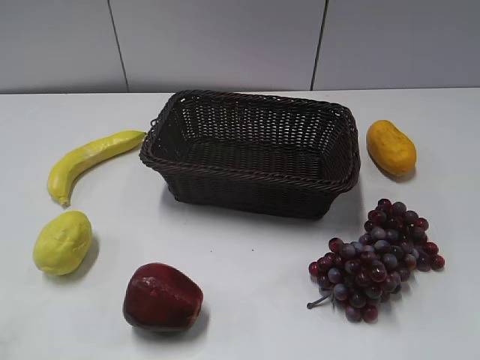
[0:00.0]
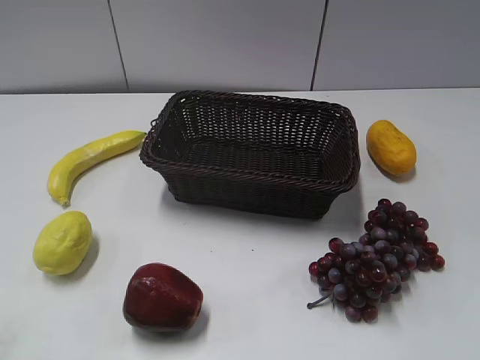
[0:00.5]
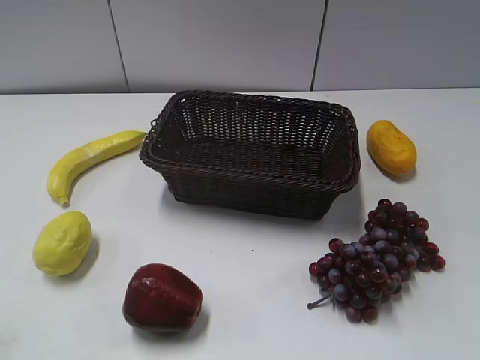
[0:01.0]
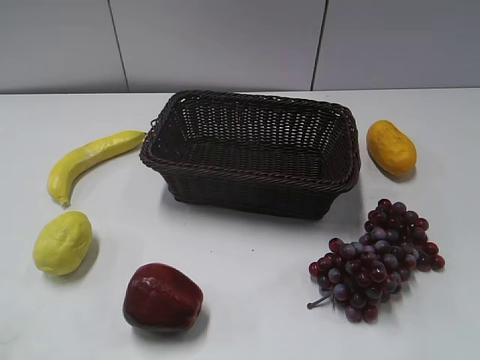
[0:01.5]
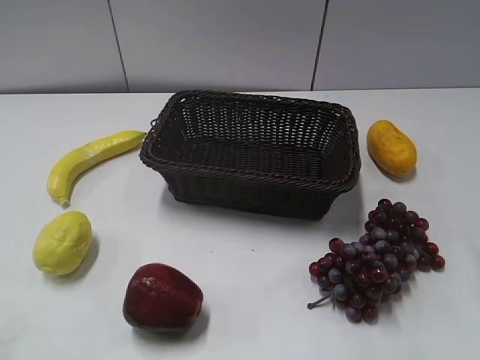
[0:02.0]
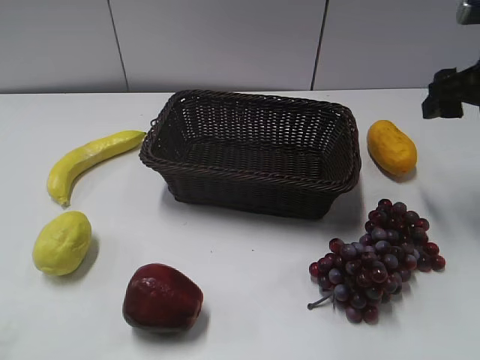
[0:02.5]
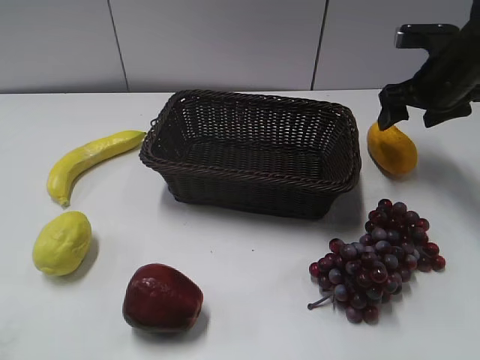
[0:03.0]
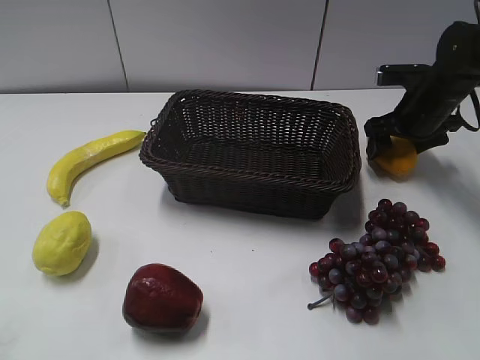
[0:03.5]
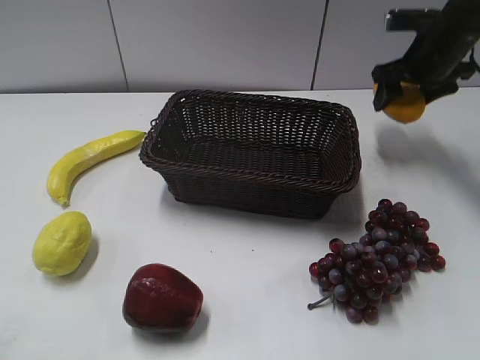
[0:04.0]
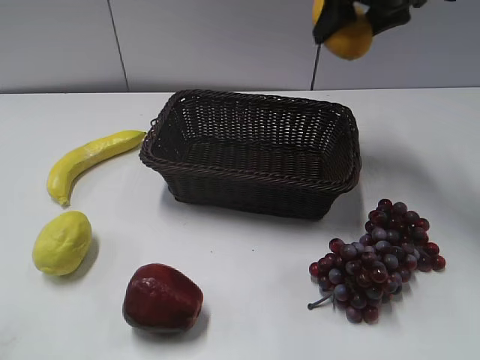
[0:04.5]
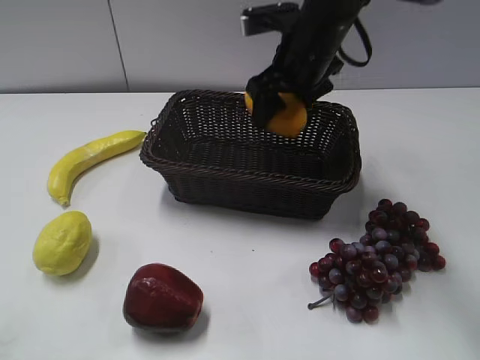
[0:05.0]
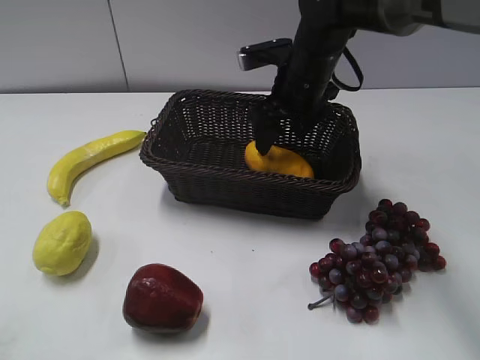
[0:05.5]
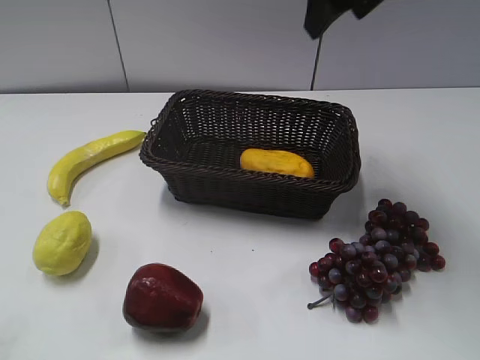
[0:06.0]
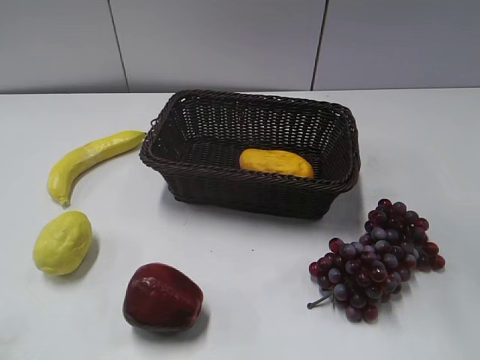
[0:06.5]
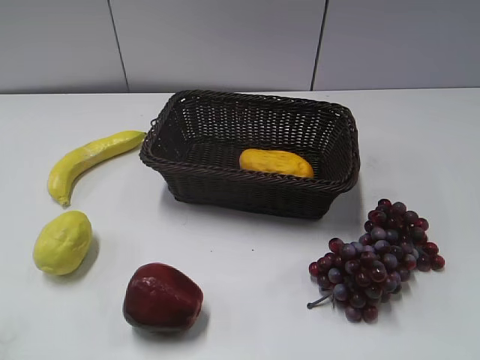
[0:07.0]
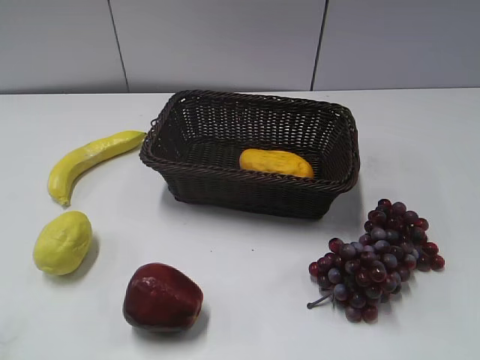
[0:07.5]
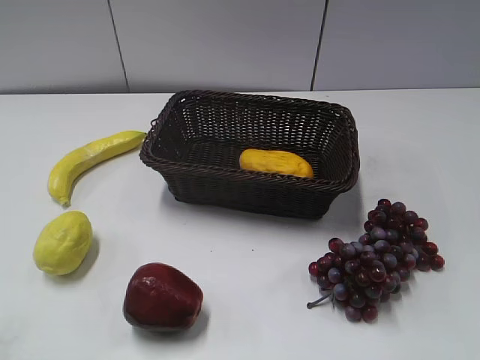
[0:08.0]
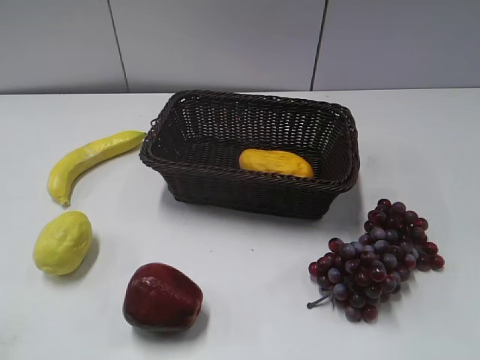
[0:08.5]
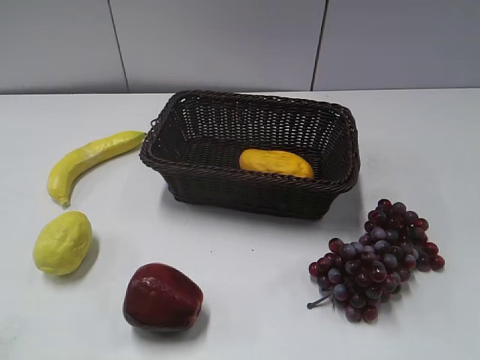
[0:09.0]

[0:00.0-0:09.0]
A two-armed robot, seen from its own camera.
Step, 0:02.5 to 0:03.5: Grasp the mango with right gripper.
Step, 0:04.0 to 0:05.5: Place the mango in the basket with right gripper.
0:02.0 to 0:04.5: The right gripper goes roughly 30 cm forward and to the left, and opens and closes again.
0:04.5 to 0:07.0: The right gripper travels backward by about 35 cm, and opens, then closes again.

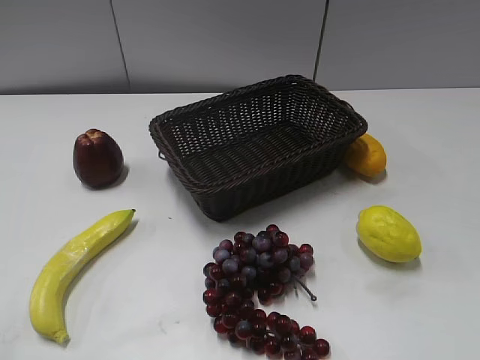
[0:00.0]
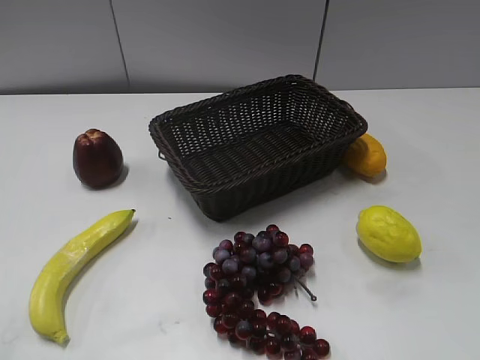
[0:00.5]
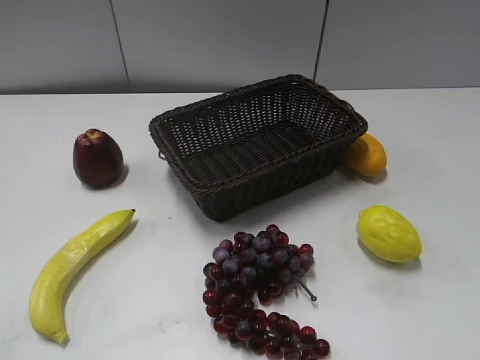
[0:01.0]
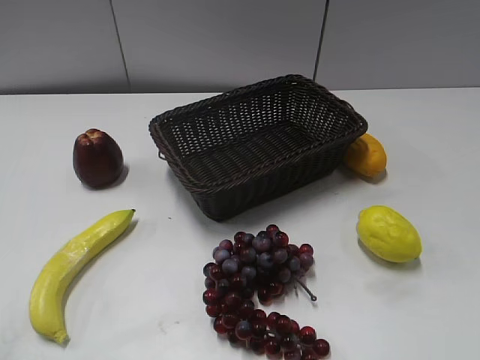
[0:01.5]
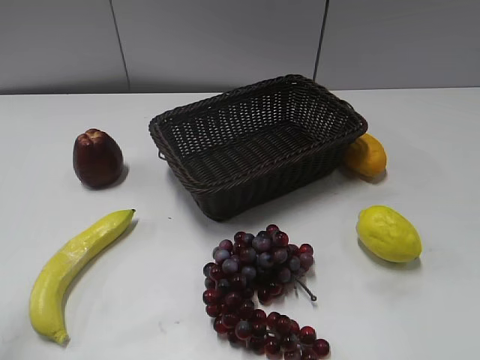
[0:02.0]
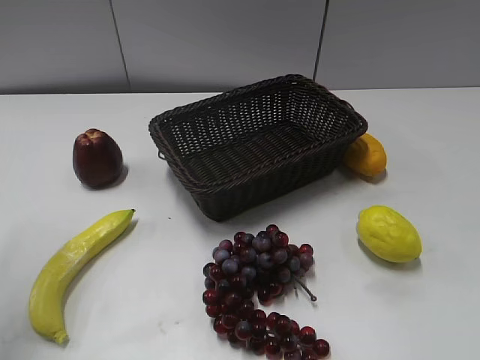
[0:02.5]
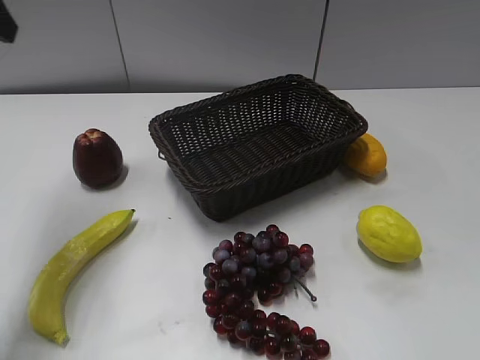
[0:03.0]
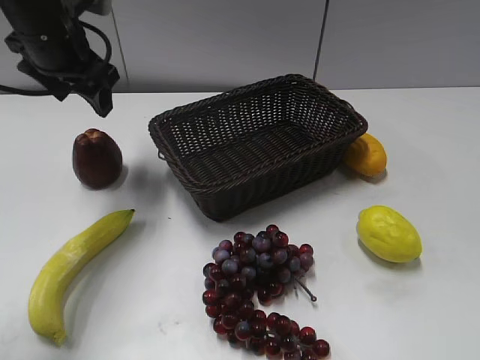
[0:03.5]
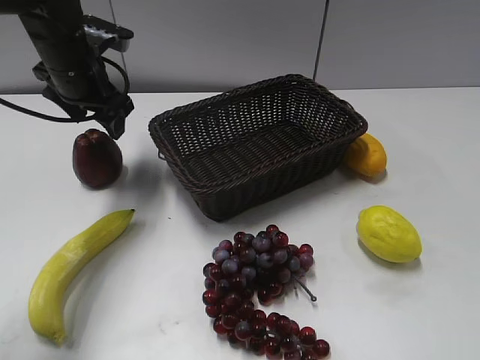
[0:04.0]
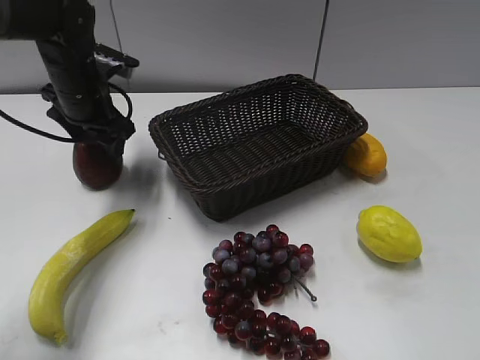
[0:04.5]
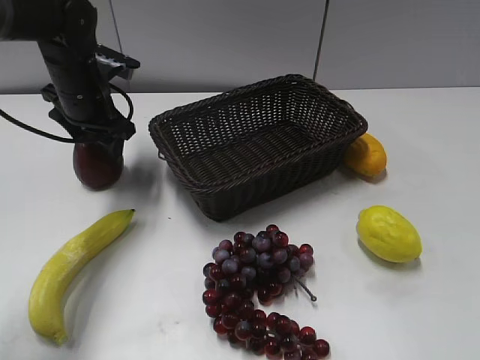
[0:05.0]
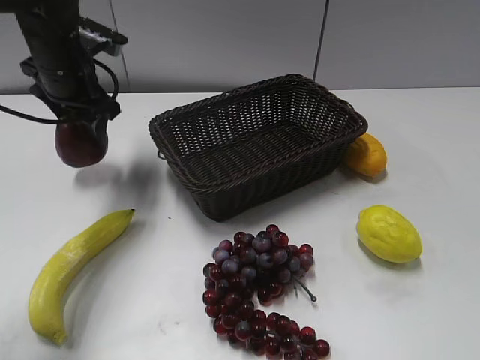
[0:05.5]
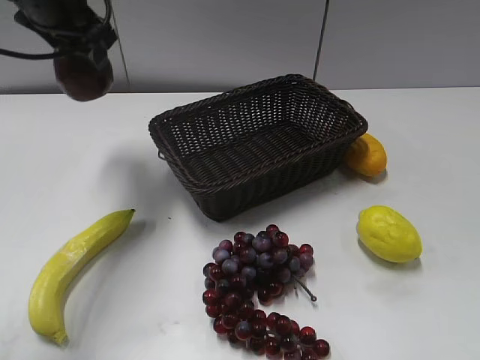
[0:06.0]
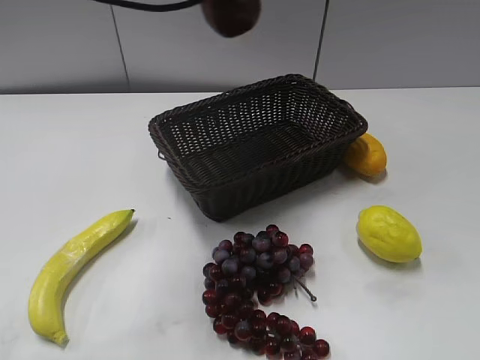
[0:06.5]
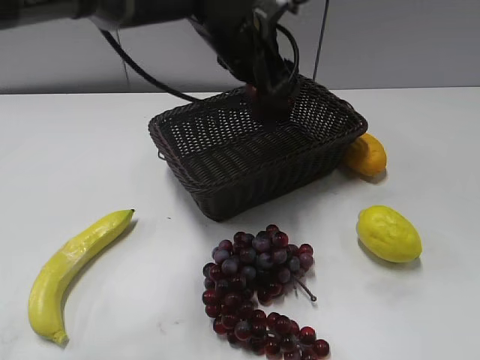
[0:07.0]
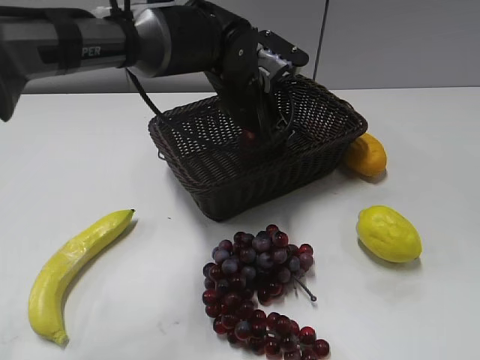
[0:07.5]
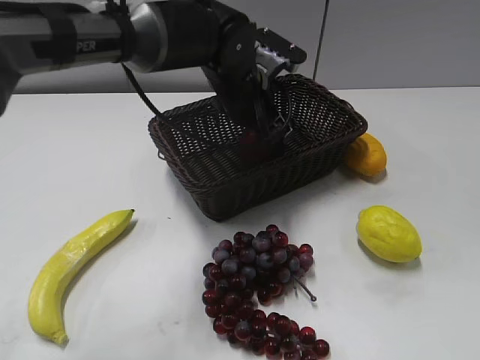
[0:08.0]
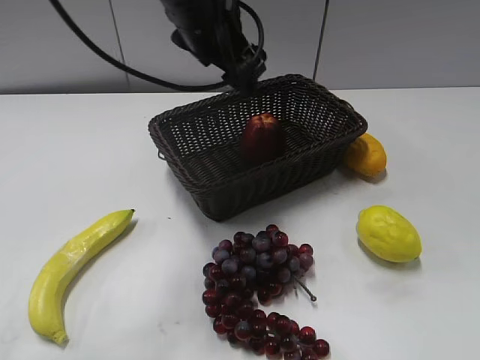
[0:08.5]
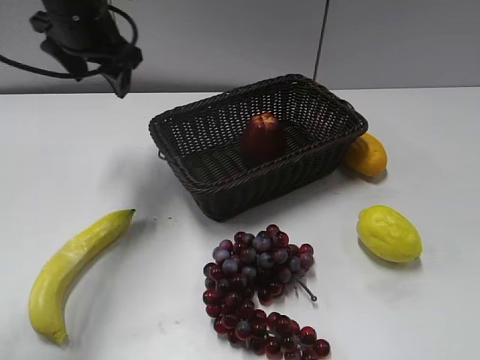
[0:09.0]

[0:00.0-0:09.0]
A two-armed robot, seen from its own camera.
Step, 0:03.0 to 0:04.5: Grasp the apple with left gripper.
Step, 0:05.0 to 0:07.5: Place the apple in the basket with left gripper.
0:02.0 to 0:04.5: The left gripper is displaced forward, downward and to the right by some 40 cm.
0:04.5 to 0:07.0: The left gripper is displaced to the right by roughly 20 cm, and closes up.
0:07.0 to 0:09.0: The left gripper heads to the left, covering some 20 cm, and opens up.

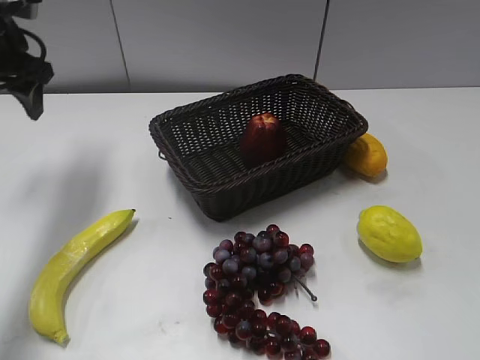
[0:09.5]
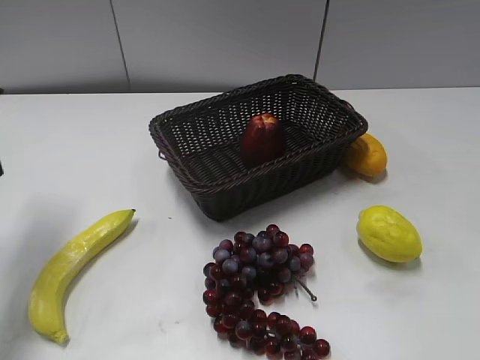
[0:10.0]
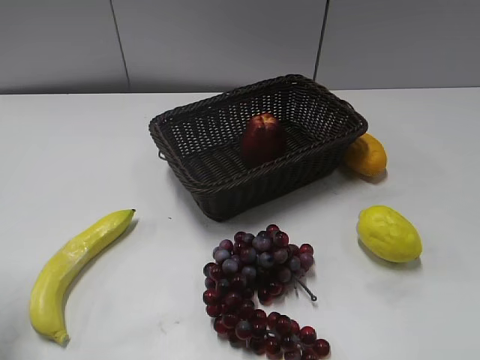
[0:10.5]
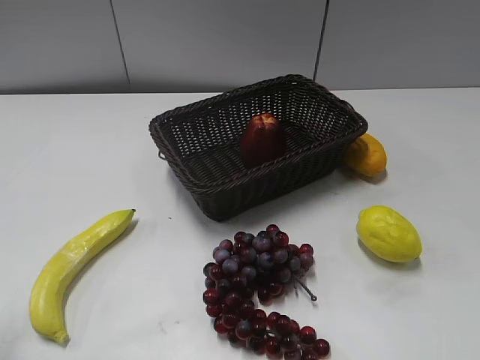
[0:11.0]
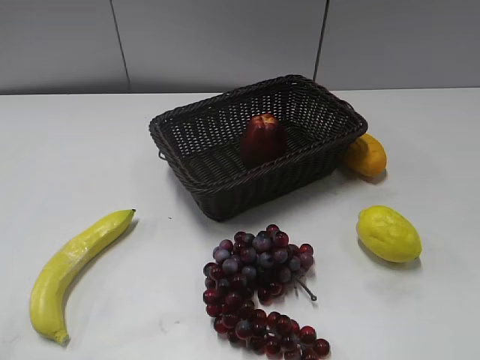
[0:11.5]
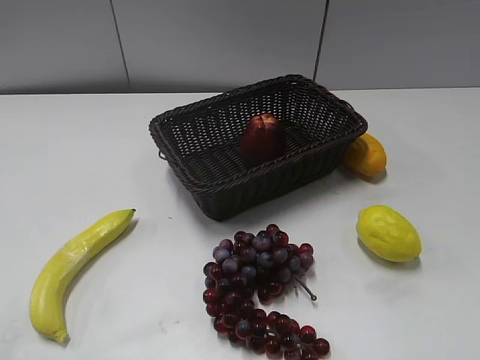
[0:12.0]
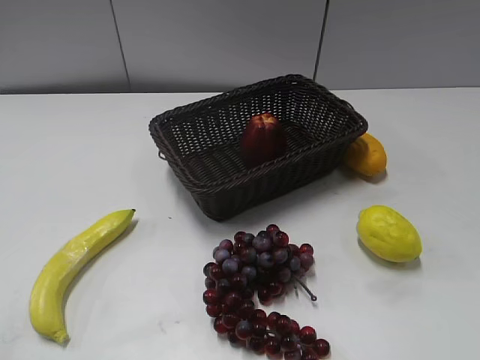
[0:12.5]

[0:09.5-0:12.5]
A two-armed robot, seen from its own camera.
0:09.5 to 0:11.0: The left gripper moves backward, roughly 30 cm.

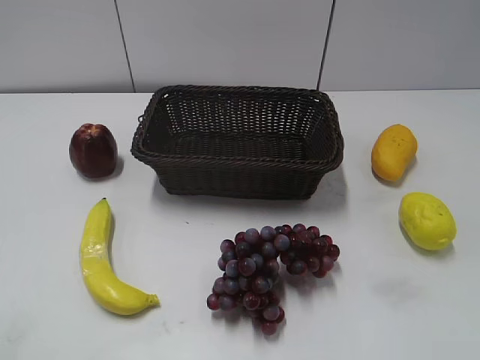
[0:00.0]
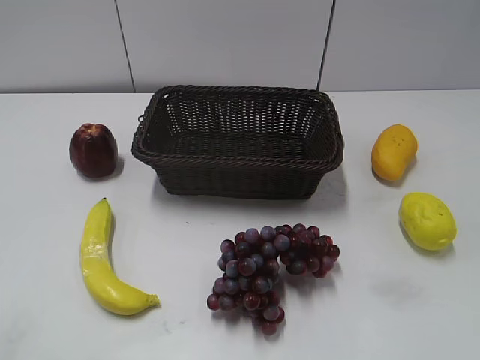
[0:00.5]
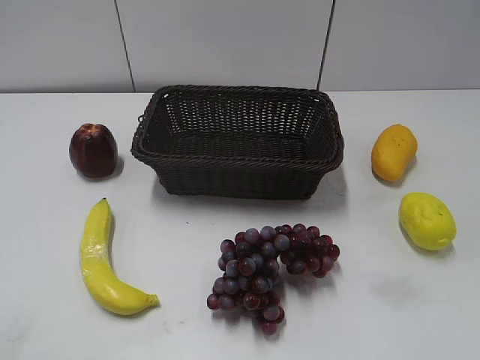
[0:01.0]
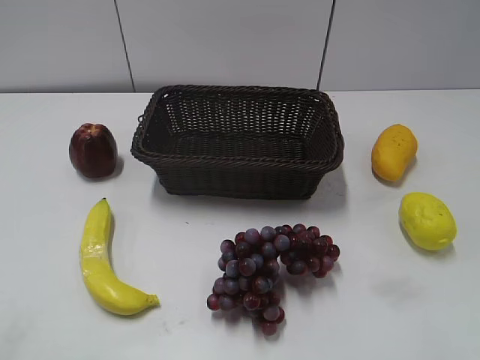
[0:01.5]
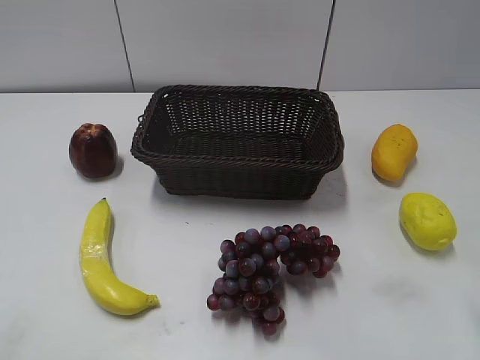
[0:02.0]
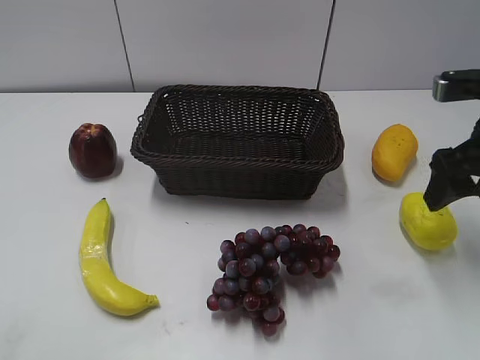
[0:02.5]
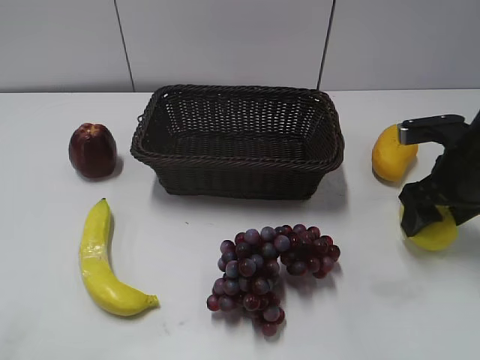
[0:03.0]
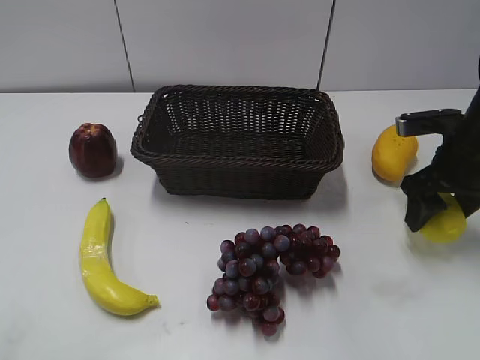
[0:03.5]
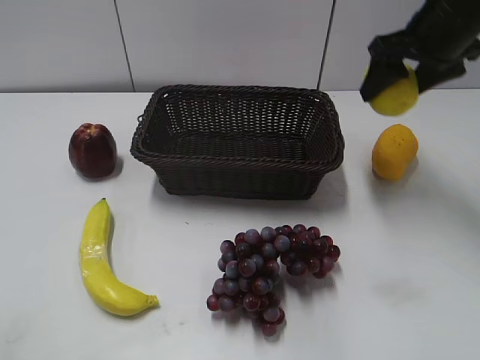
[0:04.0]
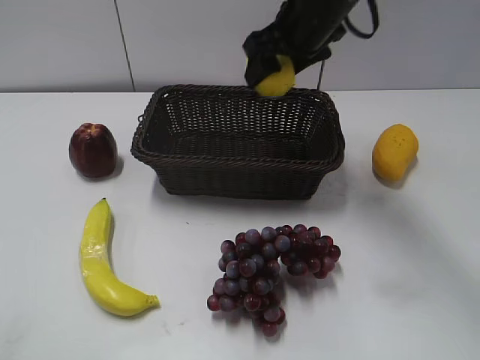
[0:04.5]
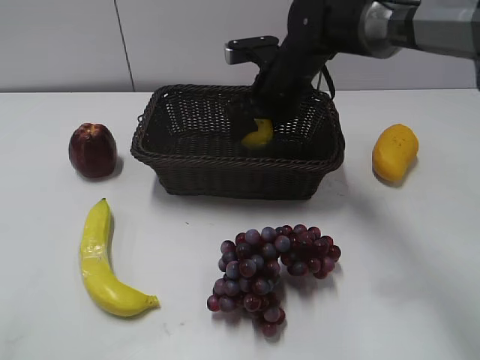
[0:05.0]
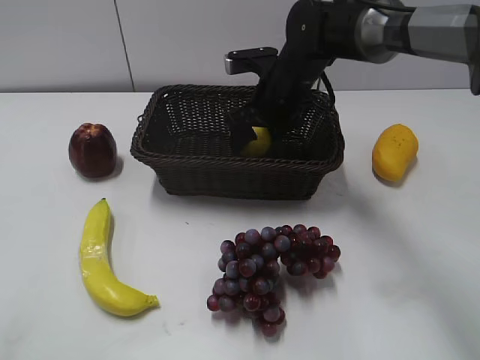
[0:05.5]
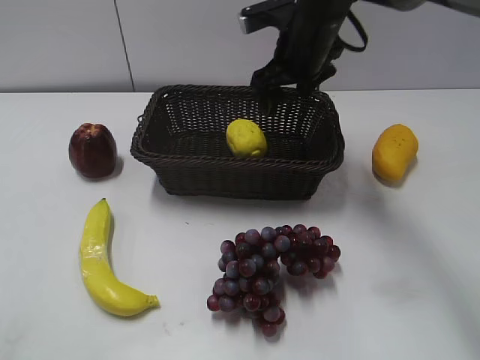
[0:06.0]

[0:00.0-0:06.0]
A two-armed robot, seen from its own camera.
Step, 0:02.5 to 0:03.5: Grasp the lemon with right gripper.
Step, 0:04.0 to 0:05.5: Place the lemon in the basket with right gripper.
0:02.0 to 0:04.0: The right gripper is displaced forward by some 20 cm.
0:04.0 to 0:06.0: The right gripper shifts some 15 cm to the left and forward.
